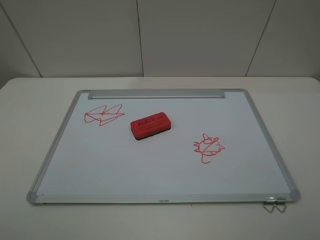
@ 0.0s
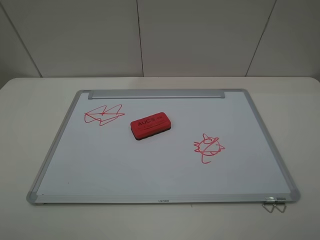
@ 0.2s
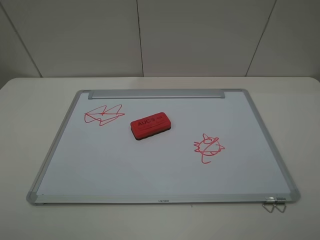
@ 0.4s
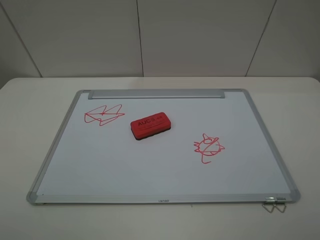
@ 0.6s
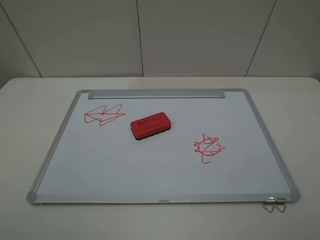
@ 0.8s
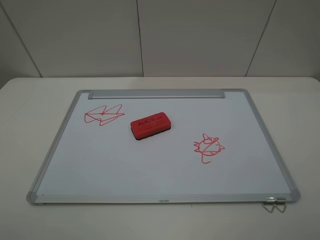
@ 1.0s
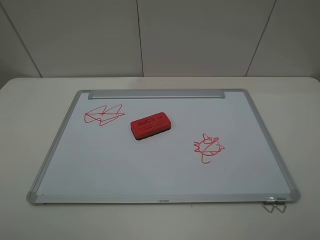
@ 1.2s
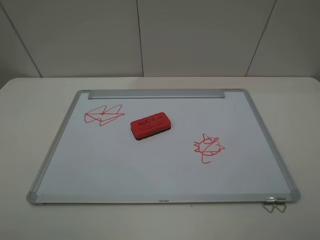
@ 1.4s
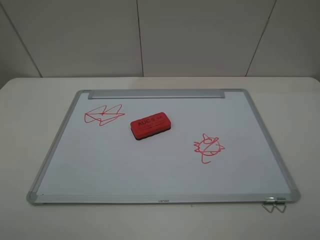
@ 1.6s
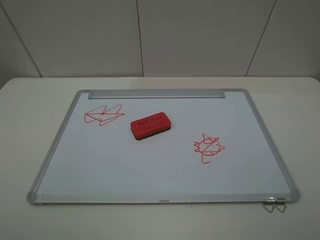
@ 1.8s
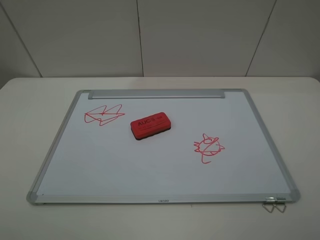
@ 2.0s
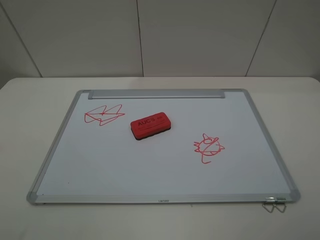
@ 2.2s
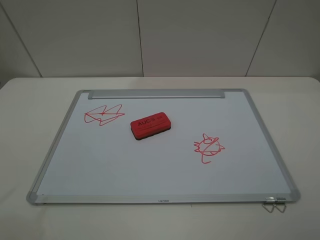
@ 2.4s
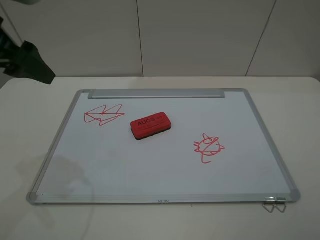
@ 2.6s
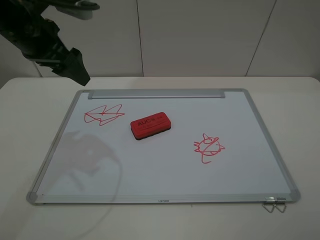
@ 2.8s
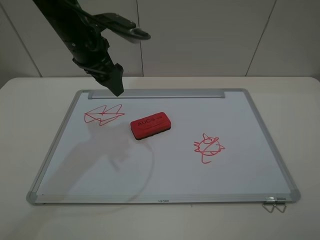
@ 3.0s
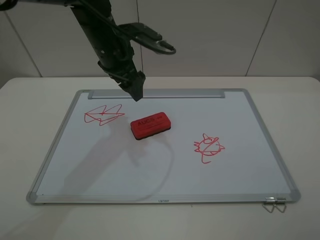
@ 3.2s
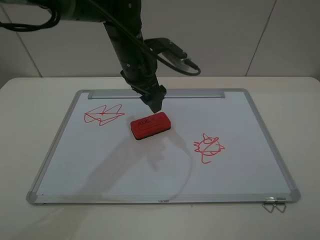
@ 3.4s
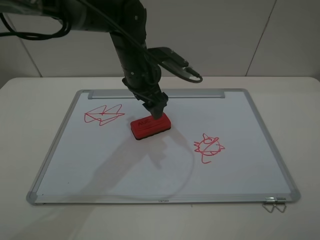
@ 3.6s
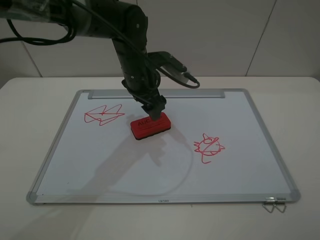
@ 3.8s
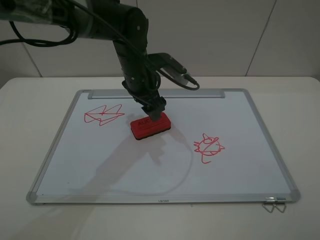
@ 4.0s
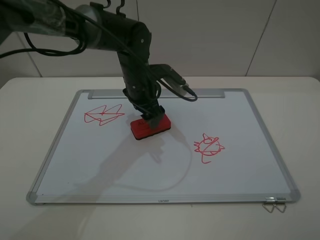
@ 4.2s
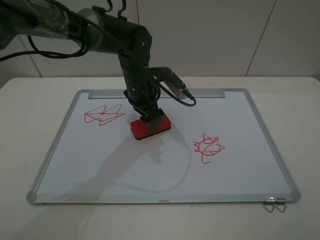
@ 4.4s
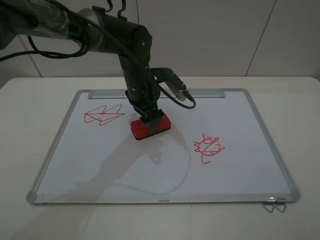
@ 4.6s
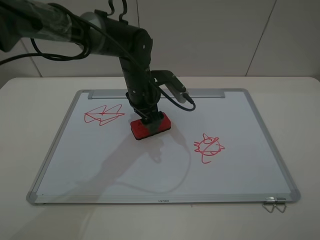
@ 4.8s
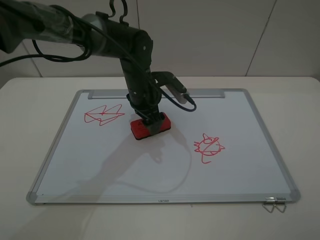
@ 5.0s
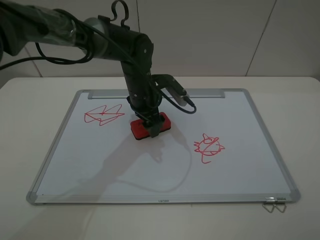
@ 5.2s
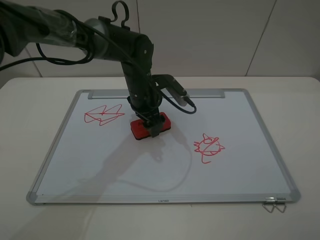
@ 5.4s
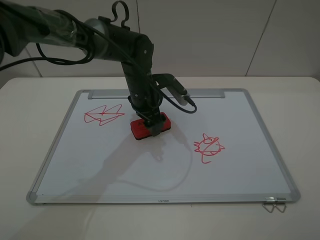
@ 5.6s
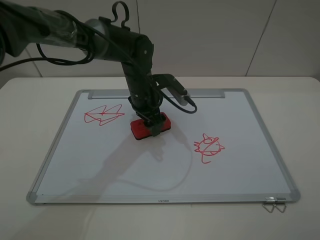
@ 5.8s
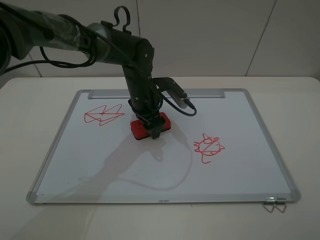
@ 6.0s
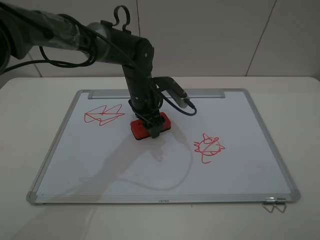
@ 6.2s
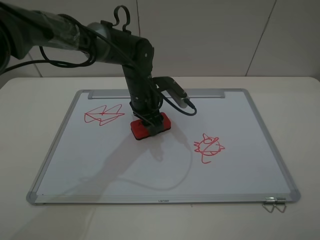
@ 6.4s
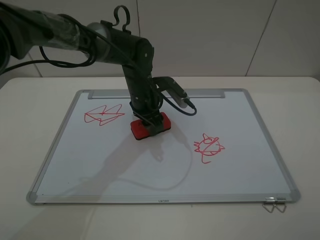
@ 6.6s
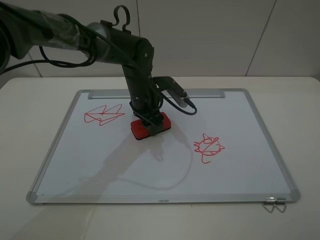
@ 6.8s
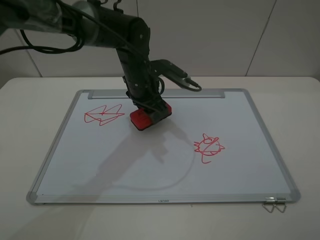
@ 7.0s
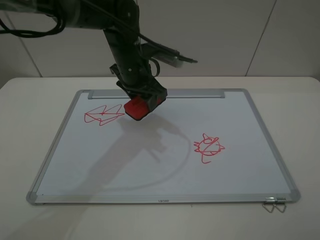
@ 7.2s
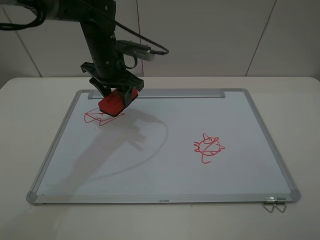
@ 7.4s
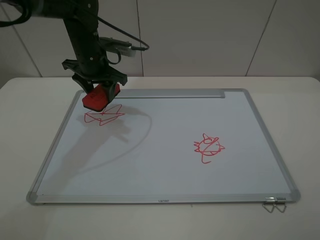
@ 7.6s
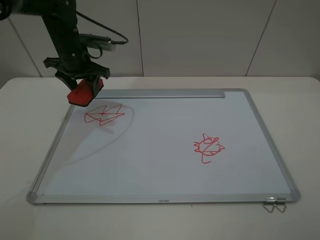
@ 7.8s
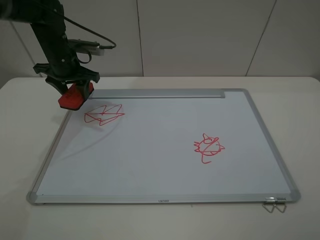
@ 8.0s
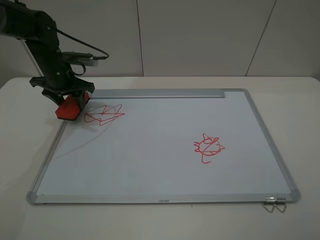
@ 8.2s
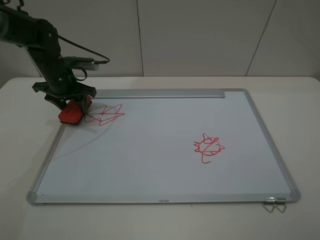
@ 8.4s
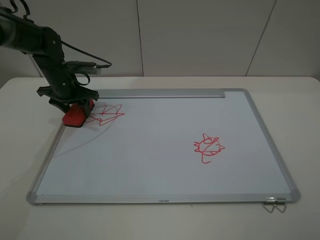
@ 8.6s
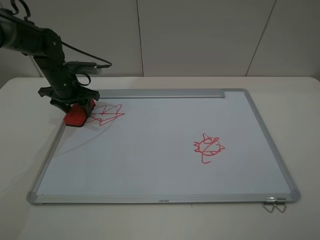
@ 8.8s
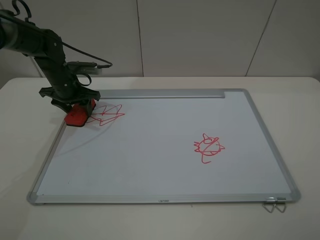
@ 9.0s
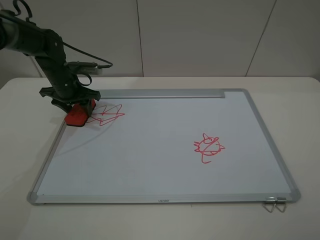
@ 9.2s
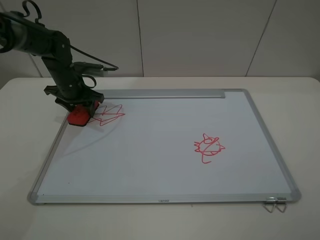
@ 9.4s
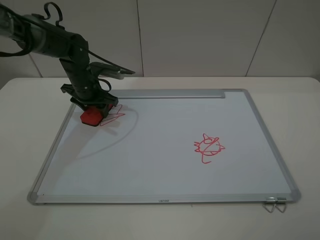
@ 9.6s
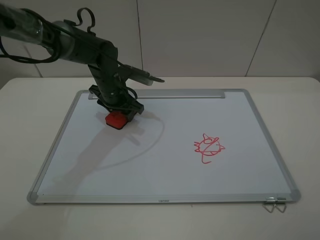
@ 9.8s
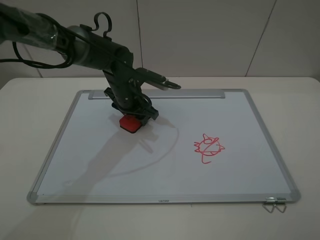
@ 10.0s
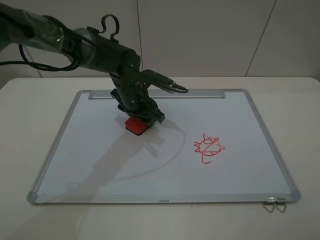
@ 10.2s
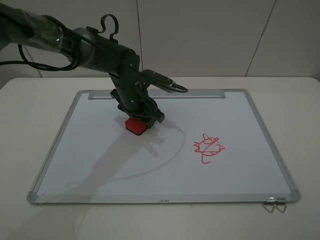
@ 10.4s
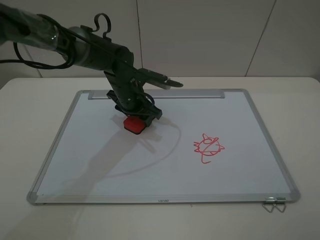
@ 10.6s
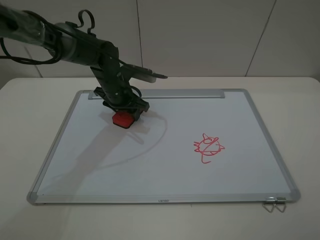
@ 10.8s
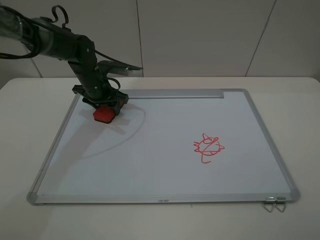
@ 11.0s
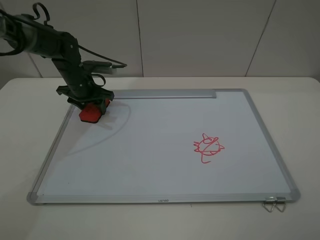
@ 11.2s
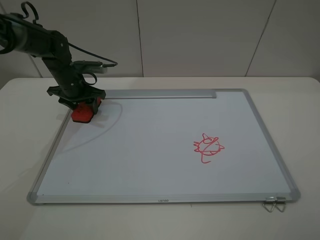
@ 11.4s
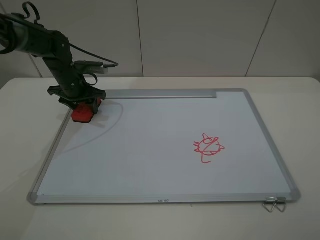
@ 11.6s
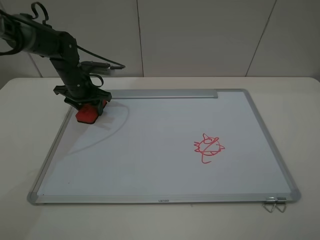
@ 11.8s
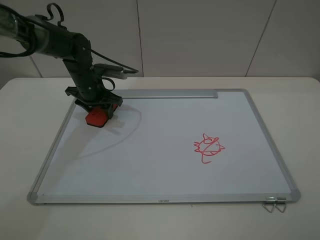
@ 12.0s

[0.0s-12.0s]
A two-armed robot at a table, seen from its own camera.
Step, 0.0s to 6.6s: Grasp the eraser with the left gripper.
0.0s to 1.6s: Neither gripper changes place.
1.6s to 3.0s: The left gripper is displaced forward and to the right by some 40 cm.
3.0s to 4.4s: The left gripper heads downward and to the right, covering about 15 cm.
4.4s to 6.0s: The grippers stay close to where they were, moving slightly.
6.0s to 7.6s: The left gripper heads to the left and upward, covering some 15 cm, and closes.
7.6s to 9.0s: The left gripper is displaced to the left and downward by roughly 10 cm.
9.0s to 10.4s: The left gripper is displaced to the right by roughly 20 cm.
10.4s to 12.0s: The left gripper travels to the left by roughly 10 cm.

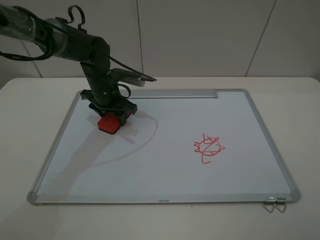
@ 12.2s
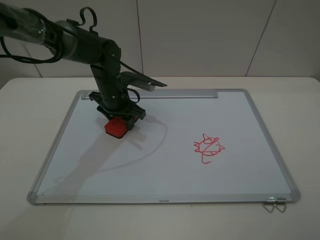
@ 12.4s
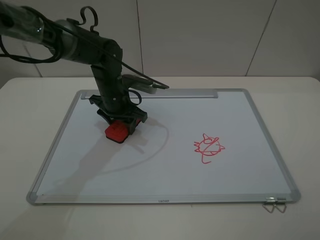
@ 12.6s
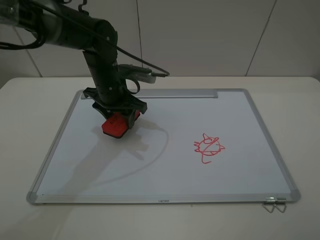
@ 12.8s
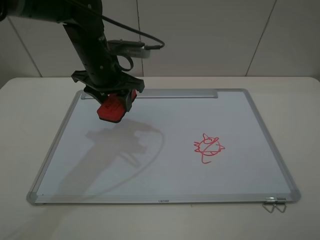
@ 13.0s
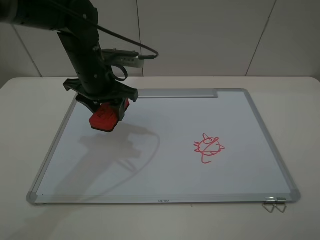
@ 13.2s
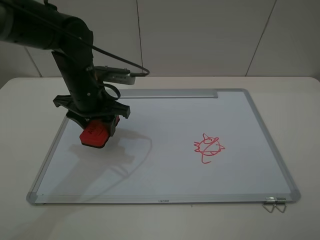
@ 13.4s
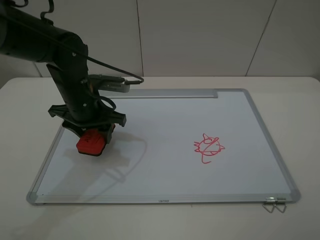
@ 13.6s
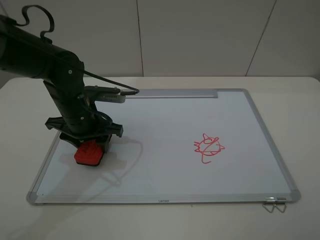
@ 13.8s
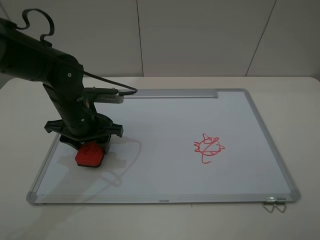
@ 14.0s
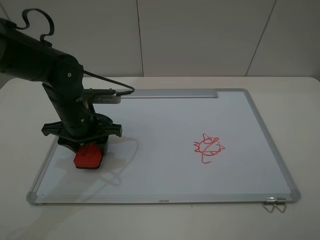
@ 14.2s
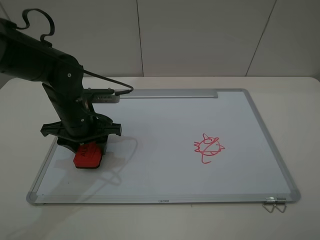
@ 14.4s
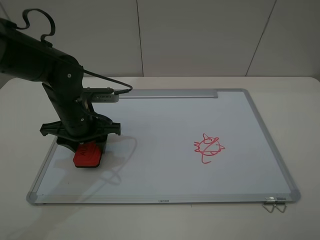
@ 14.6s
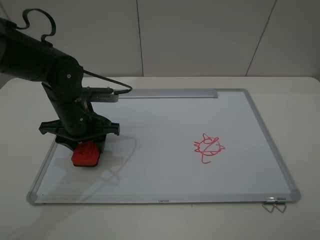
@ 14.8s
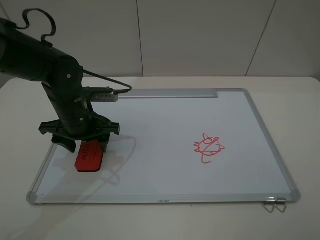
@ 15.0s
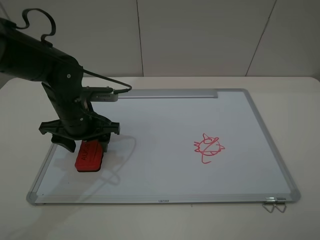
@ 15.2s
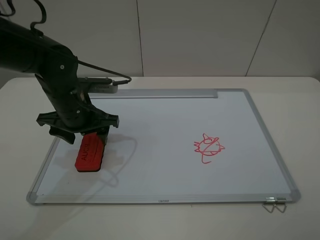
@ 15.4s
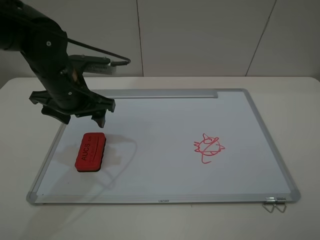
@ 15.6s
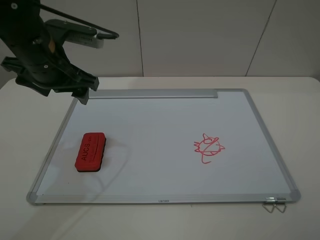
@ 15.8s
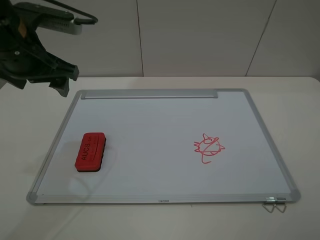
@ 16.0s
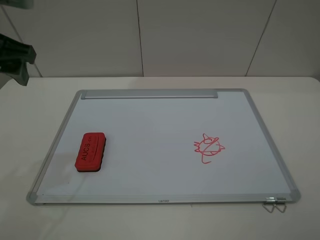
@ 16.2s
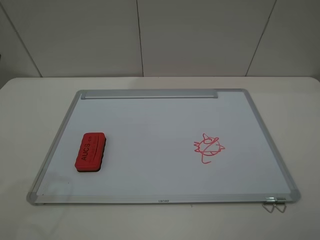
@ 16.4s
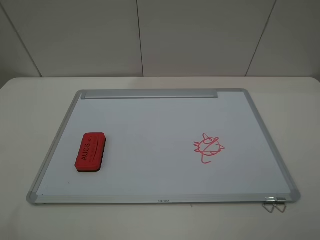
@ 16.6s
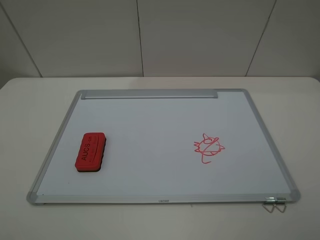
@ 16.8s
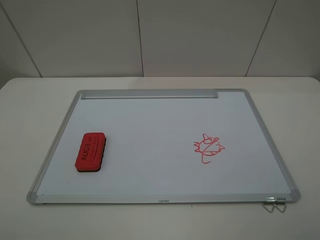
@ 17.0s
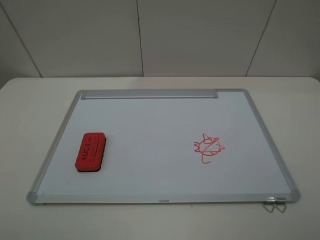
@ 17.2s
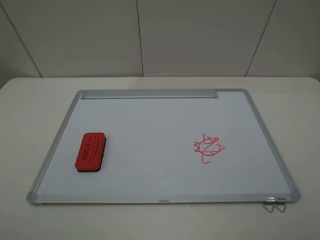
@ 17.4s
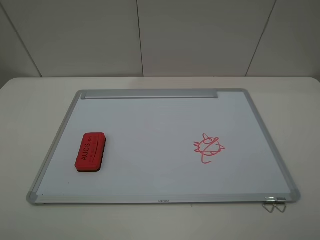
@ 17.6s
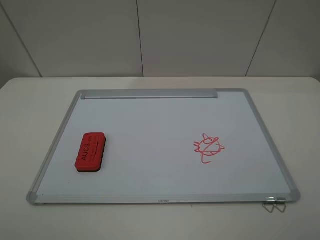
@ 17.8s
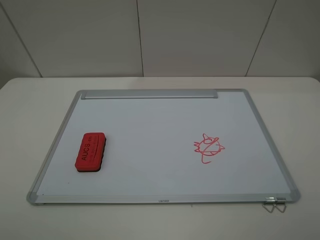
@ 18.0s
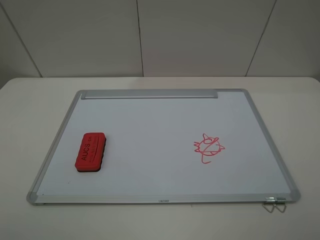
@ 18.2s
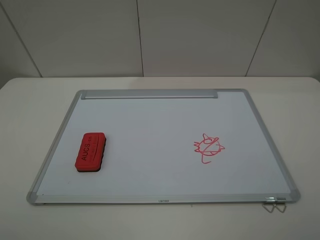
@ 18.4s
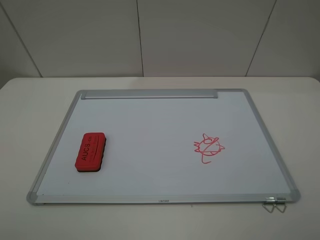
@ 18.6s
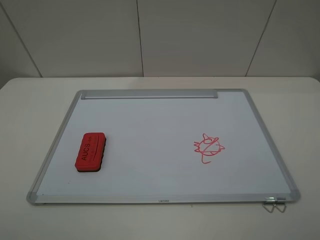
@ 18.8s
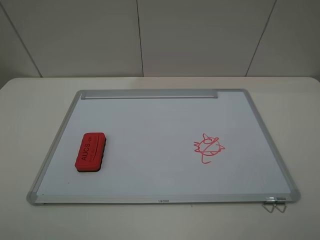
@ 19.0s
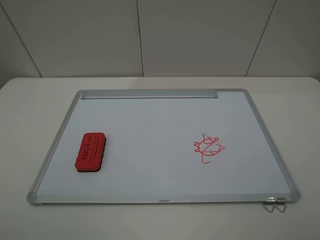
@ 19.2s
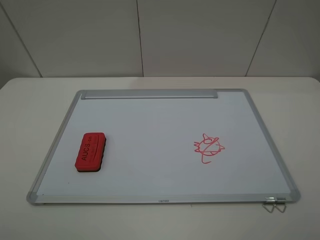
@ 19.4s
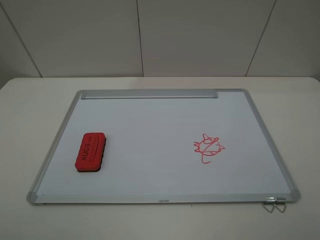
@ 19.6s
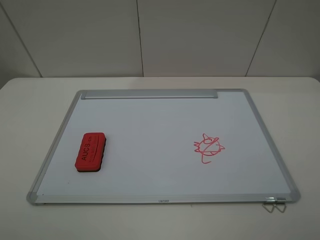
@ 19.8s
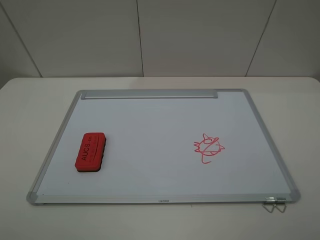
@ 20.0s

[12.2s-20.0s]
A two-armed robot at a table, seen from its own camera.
Step, 13.2s to 15.4s: Place the eraser with the left gripper.
12.2s to 13.8s: The left gripper shifts approximately 10 cm backward.
13.8s to 15.4s: The left gripper opens up.
15.4s to 16.8s: The left gripper goes approximately 35 cm upward, backward and to the left.

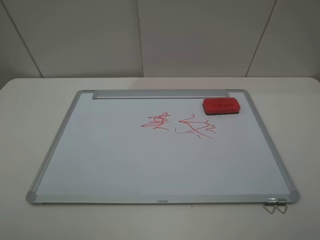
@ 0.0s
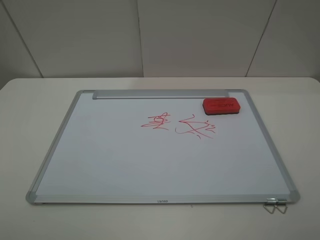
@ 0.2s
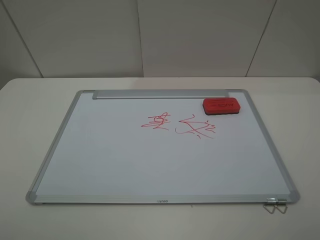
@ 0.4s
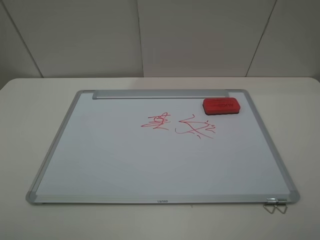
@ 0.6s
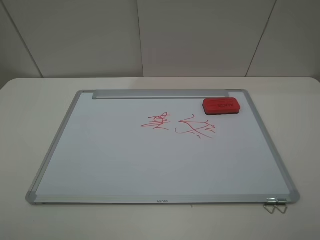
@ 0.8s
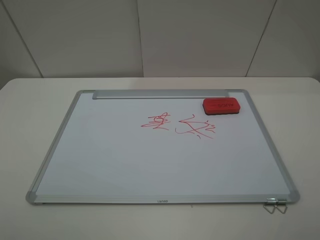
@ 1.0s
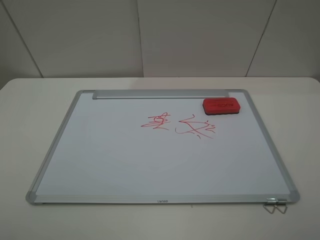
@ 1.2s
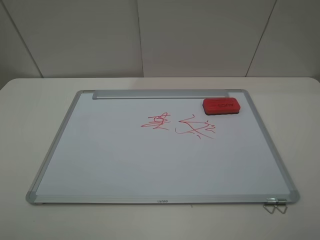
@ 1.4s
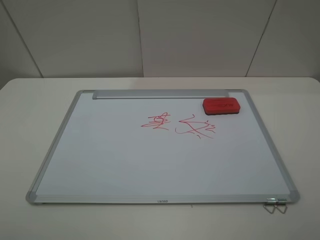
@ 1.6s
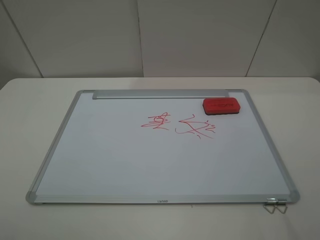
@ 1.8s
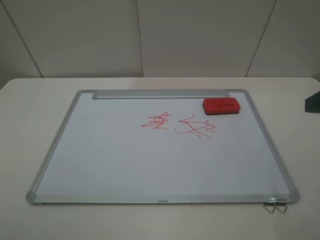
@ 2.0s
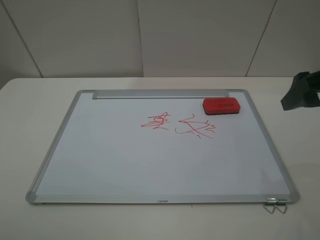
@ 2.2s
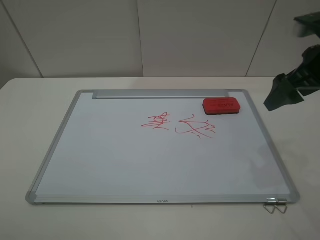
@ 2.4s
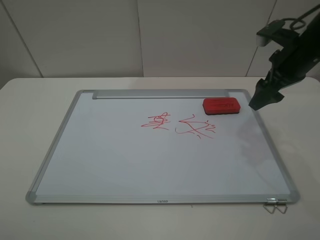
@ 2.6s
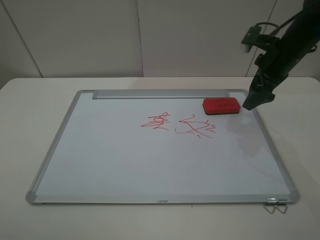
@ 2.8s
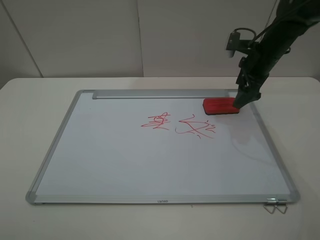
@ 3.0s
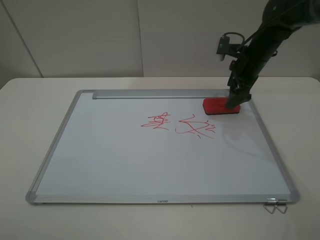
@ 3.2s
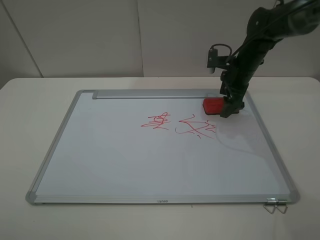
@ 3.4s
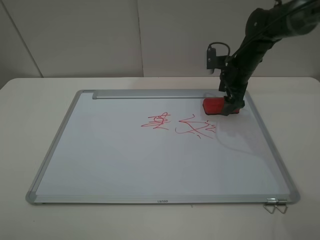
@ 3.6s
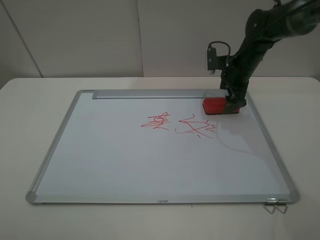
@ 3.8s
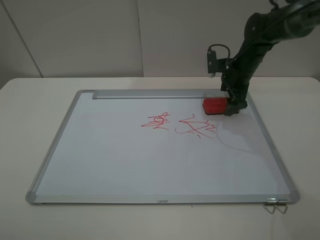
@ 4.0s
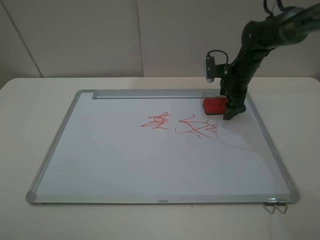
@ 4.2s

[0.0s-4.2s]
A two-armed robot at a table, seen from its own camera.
0.0s to 1.4s: The two grippers keep their place.
1.4s to 2.8s: The right gripper heads forward, covering roughly 35 cm.
2.8s to 4.2s: The right gripper shifts roughly 10 cm downward and forward.
